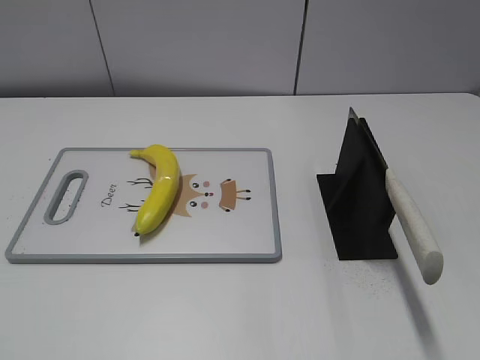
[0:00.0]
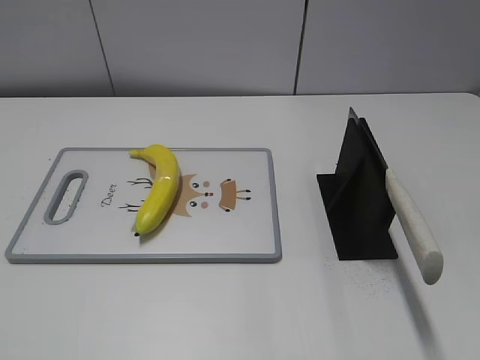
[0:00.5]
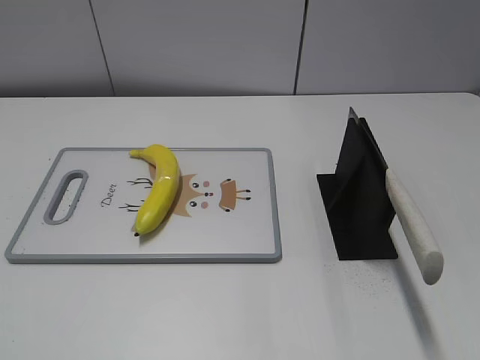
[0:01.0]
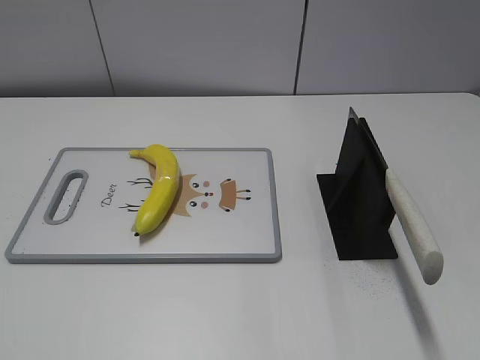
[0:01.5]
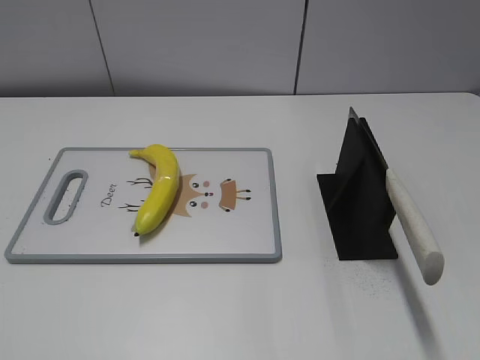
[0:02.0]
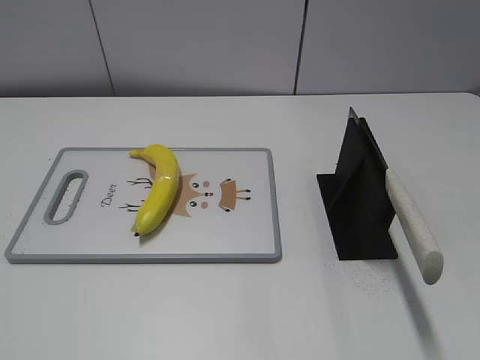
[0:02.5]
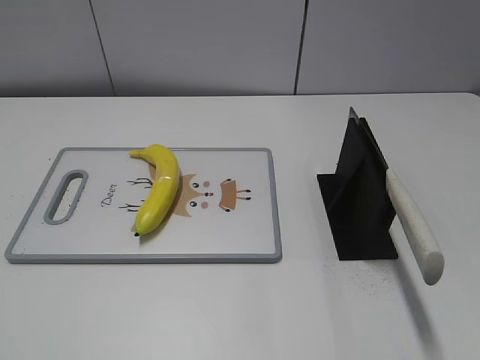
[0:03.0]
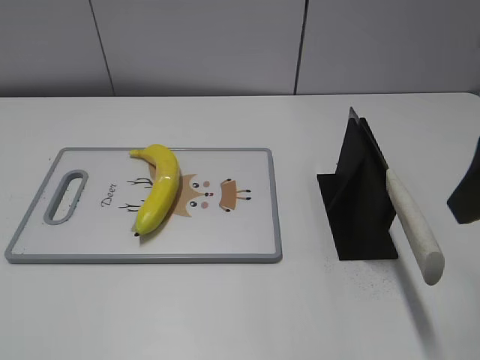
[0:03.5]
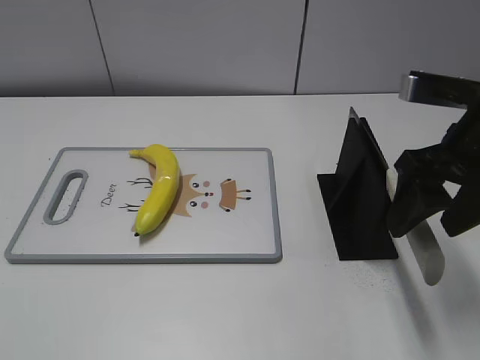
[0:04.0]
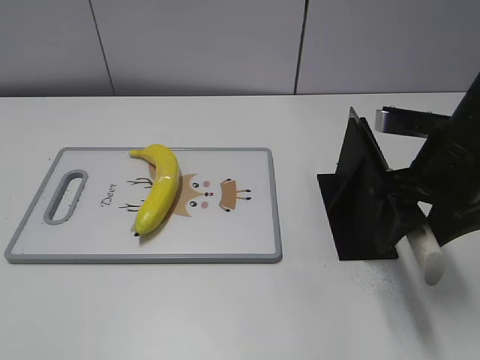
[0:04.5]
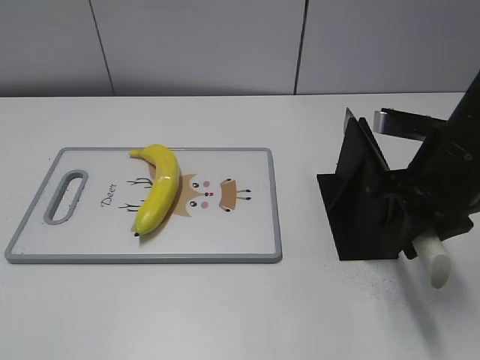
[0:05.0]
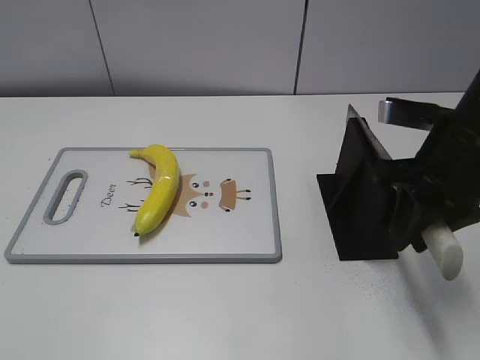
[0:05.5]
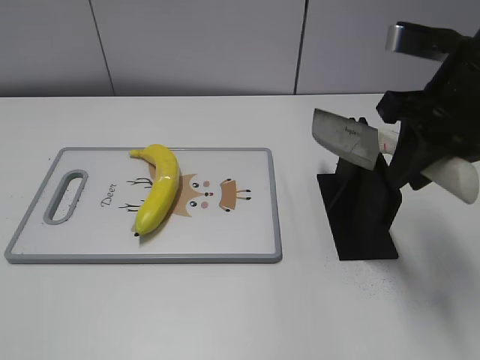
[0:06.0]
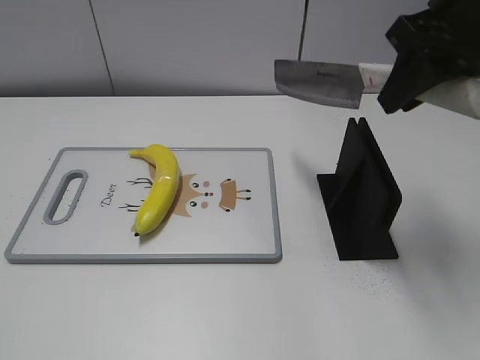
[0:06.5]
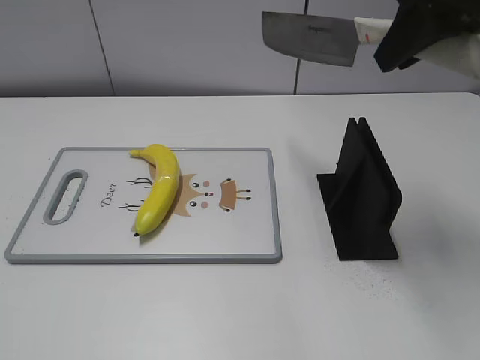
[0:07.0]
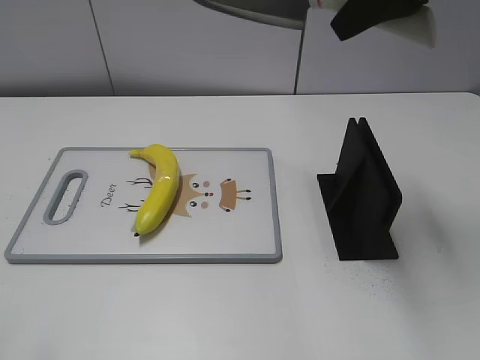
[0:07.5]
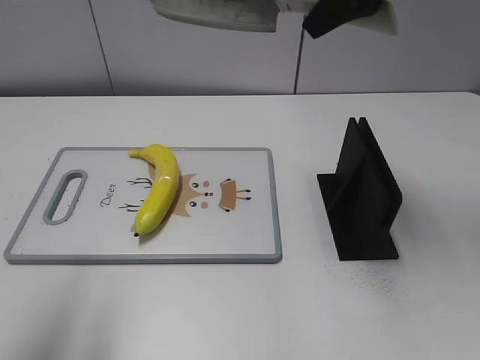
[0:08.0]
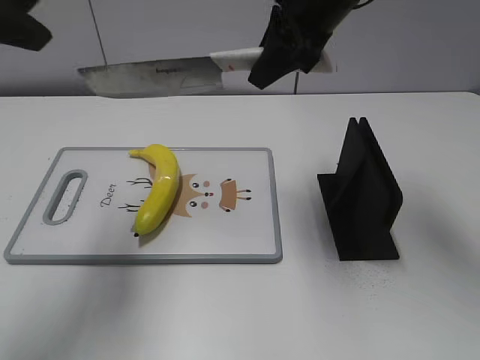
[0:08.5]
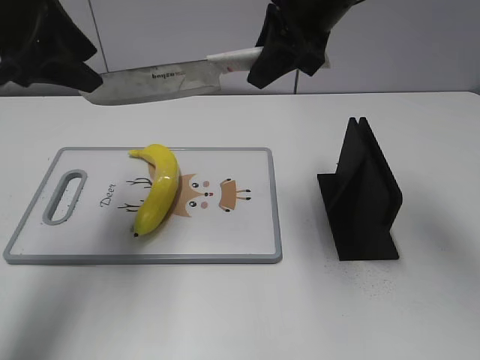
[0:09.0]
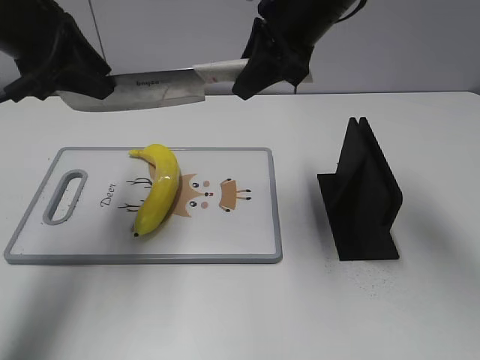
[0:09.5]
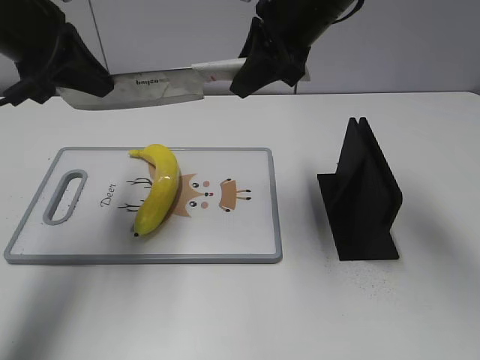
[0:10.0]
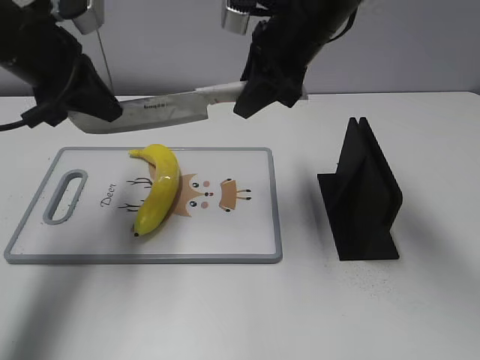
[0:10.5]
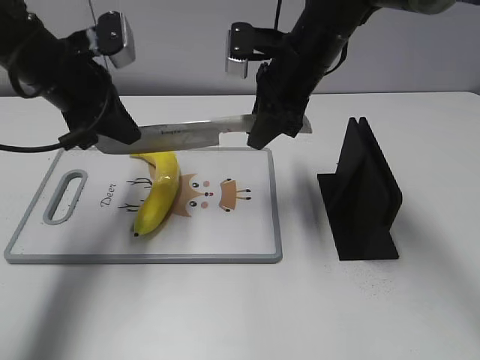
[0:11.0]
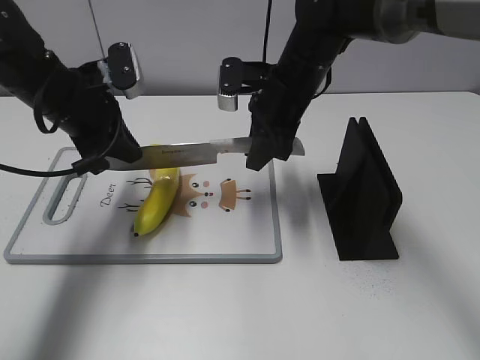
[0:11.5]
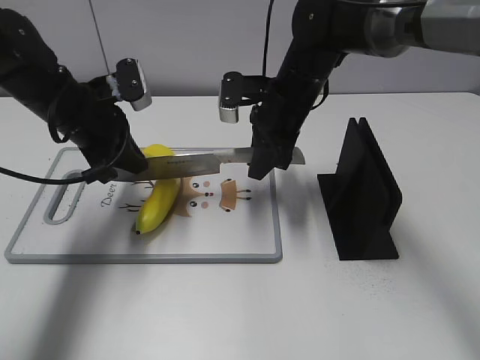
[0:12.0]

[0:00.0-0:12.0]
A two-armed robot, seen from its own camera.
Task of the whole recording: cut plastic banana.
Step, 0:00.0 to 0:06.0: Grab the knife handle with your right hand.
Step, 0:06.5 to 0:12.0: Lift the knife with your right hand.
0:02.0 to 0:04.0: The right gripper moves forward, approximately 25 cm.
0:04.0 to 0:06.0: The right gripper closes its fingers.
0:06.0 to 0:08.0: The right gripper goes about 10 cm forward and upward. Meanwhile the left gripper travels forward and upward by approximately 20 cm.
0:08.0 to 0:10.0: The right gripper goes about 10 cm to the left and downward; the left gripper travels forward and downward by some 20 cm, and closes.
0:10.0 to 0:12.0: Both grippers travel together downward, roughly 15 cm.

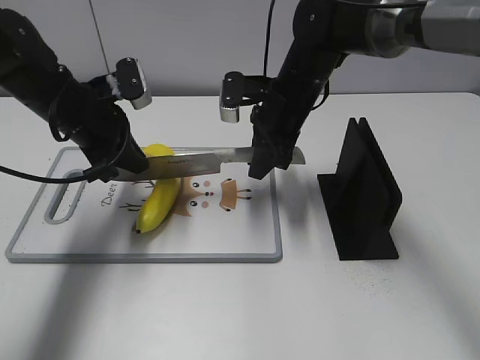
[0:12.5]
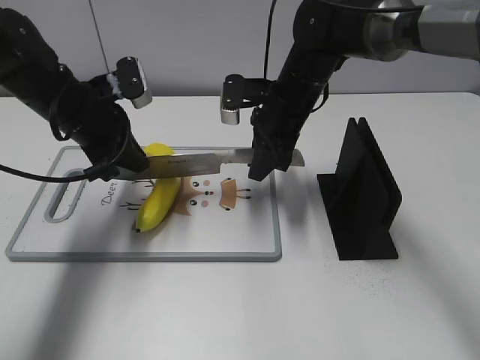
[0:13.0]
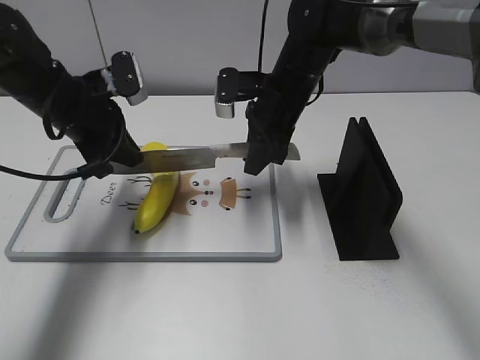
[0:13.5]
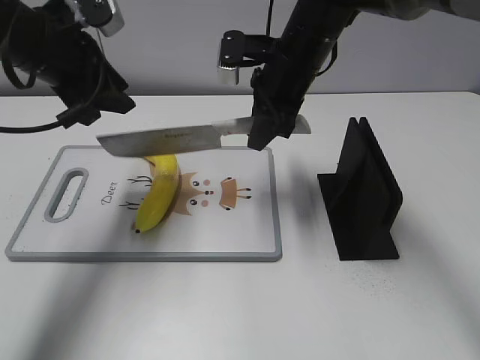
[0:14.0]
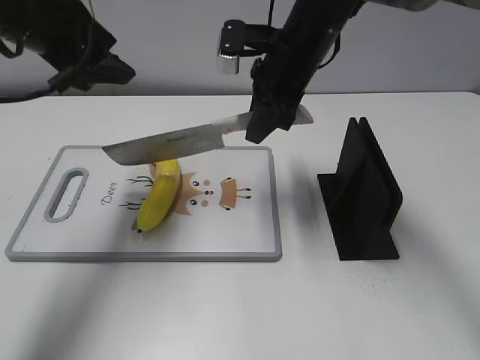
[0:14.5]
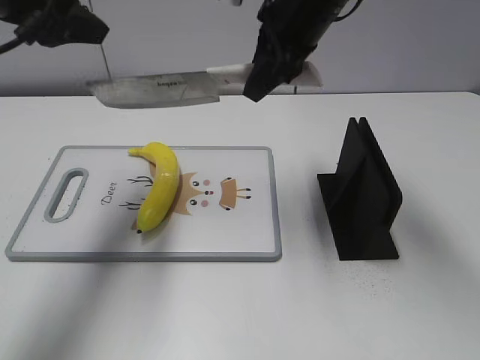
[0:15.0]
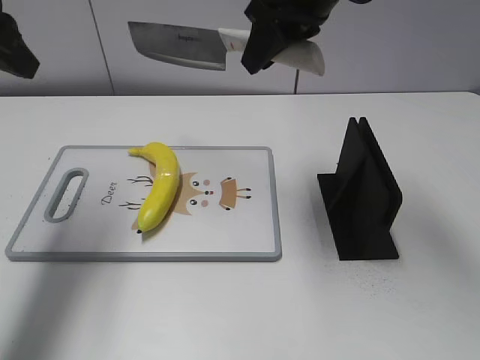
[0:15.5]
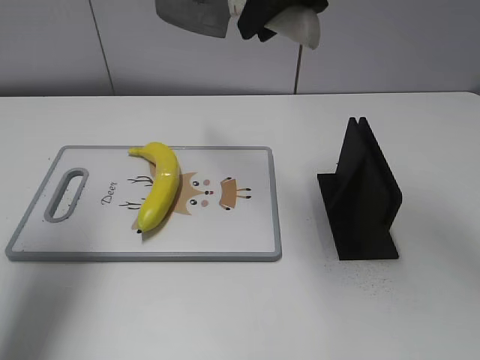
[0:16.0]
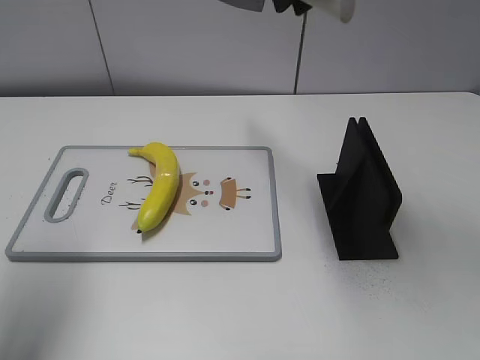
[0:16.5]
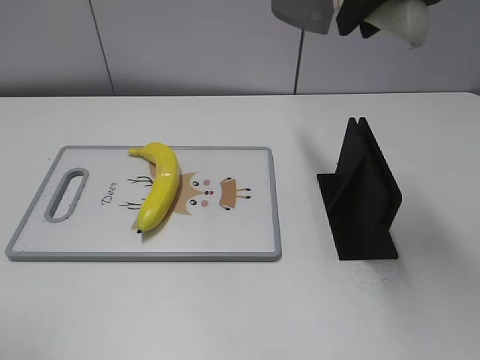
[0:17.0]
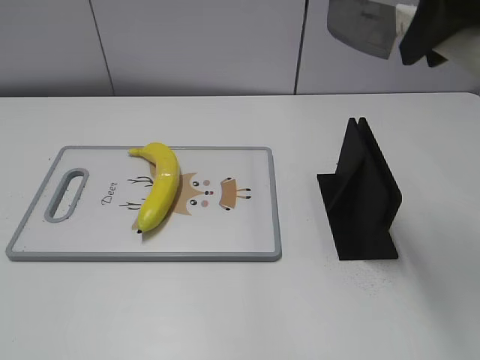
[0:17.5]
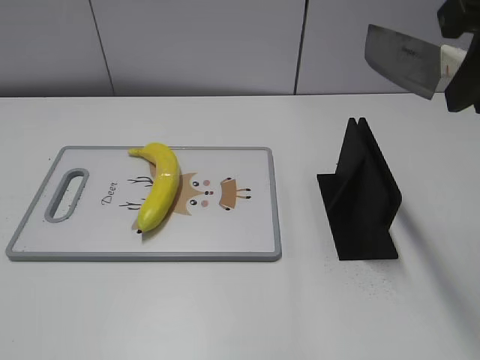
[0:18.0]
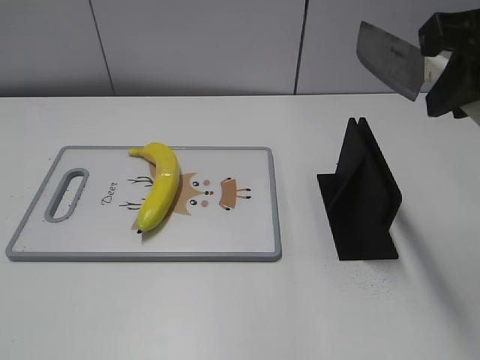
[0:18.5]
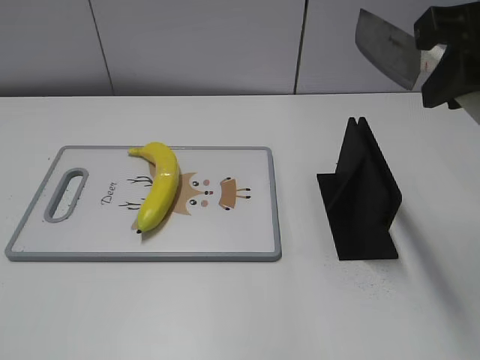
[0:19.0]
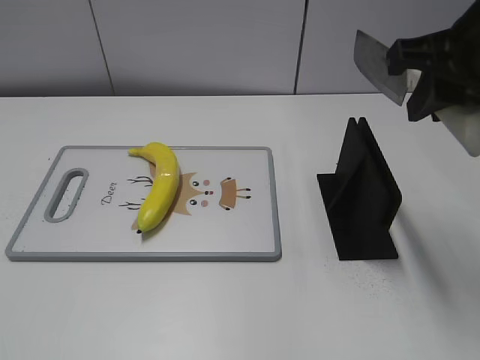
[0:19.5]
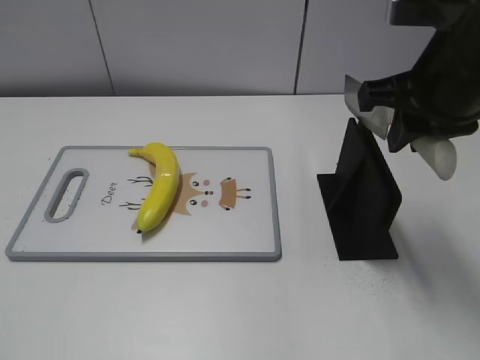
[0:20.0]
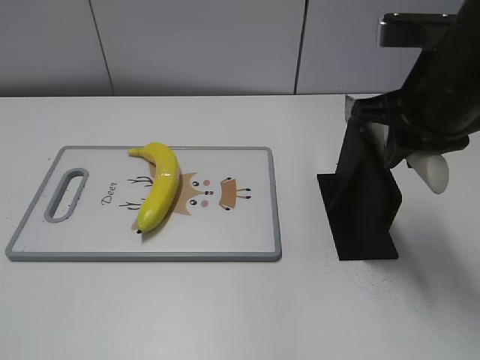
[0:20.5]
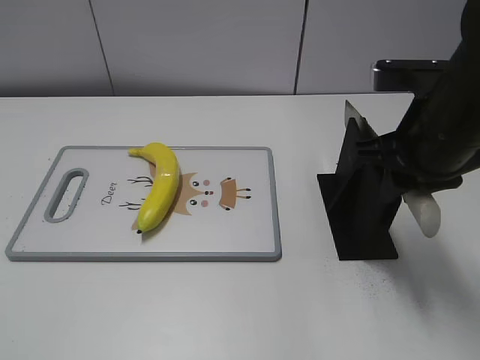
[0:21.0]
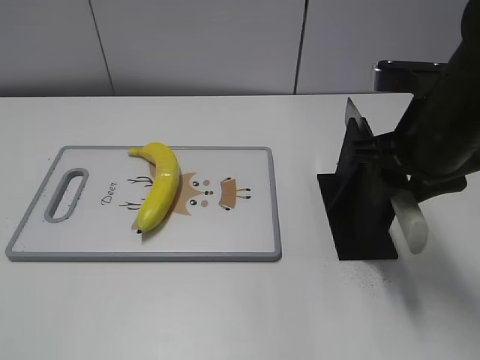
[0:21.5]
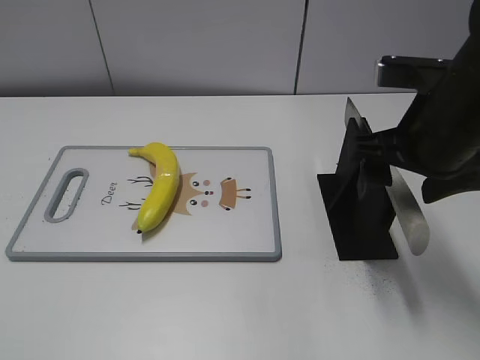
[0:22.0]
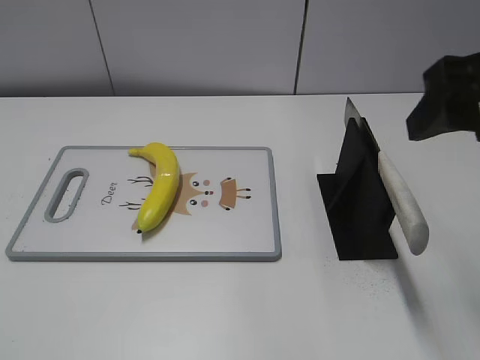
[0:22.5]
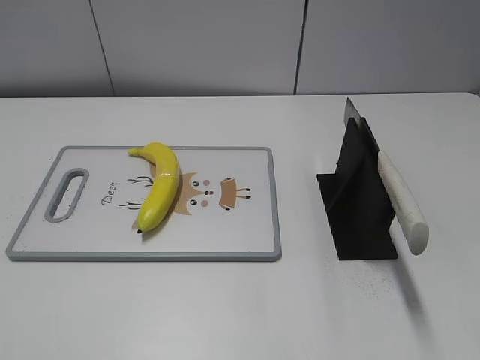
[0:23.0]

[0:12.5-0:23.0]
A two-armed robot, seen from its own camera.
Task of the whole recording: cut plastic banana.
Step, 0:12.5 to 0:15.5: Cut the banana with your right hand.
Step, 0:16.0 to 0:16.5: Lift the knife with your right hand.
0:12.5 to 0:14.5: The right gripper heads upward, covering some 5 cm, while the left gripper shifts approximately 15 cm upward, and opens up.
0:14.5 to 0:16.5: The right gripper moves upward, about 15 cm. Meanwhile the left gripper goes roughly 15 cm backward, to the left and upward.
0:16.5 to 0:19.0: The right gripper shifts some 15 cm backward and to the right. The left gripper shifts about 25 cm backward.
0:19.0 to 0:21.0: The right gripper is displaced downward by roughly 10 cm.
0:21.0 to 0:23.0: The right gripper moves upward and backward, approximately 20 cm, and opens its fingers.
